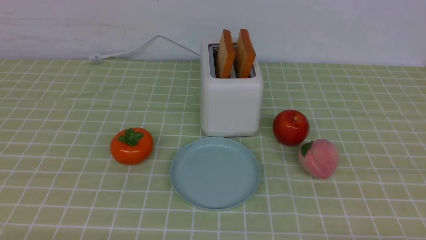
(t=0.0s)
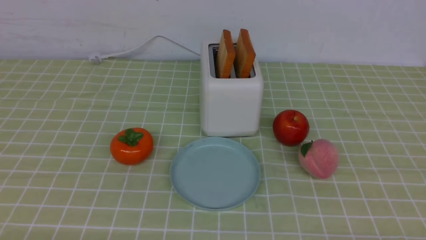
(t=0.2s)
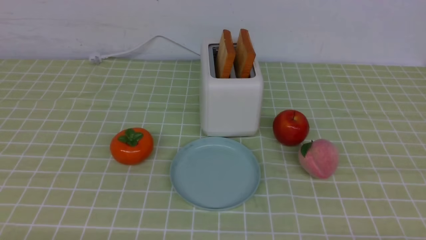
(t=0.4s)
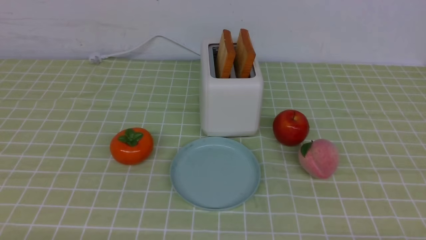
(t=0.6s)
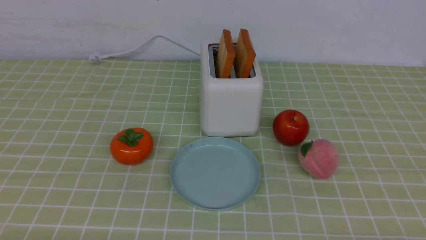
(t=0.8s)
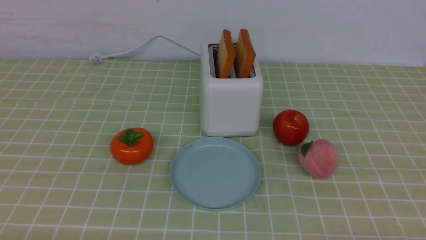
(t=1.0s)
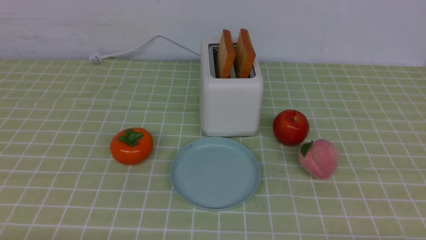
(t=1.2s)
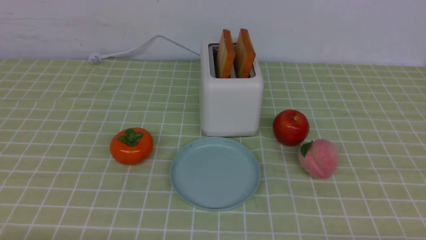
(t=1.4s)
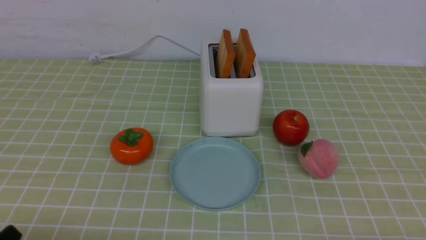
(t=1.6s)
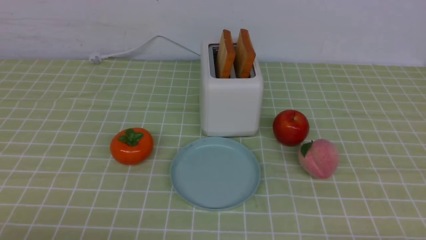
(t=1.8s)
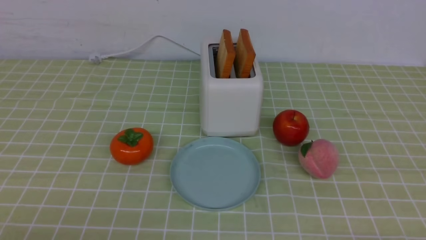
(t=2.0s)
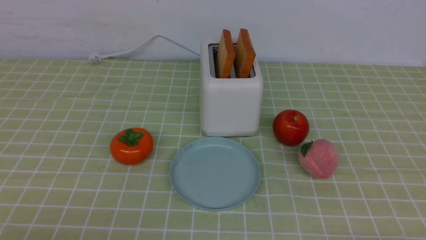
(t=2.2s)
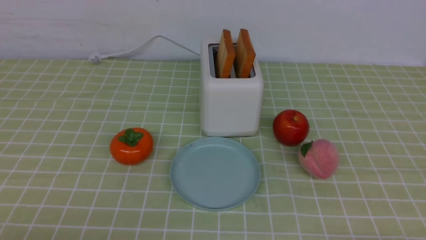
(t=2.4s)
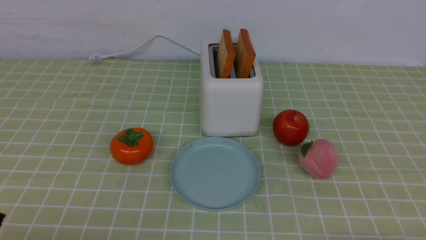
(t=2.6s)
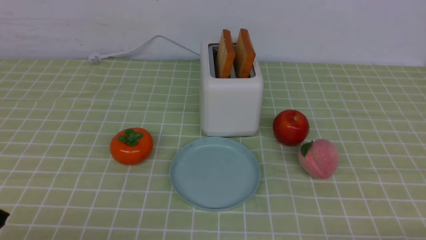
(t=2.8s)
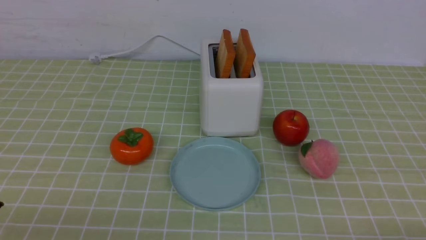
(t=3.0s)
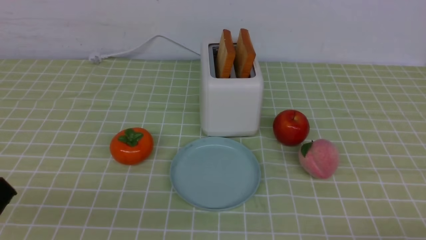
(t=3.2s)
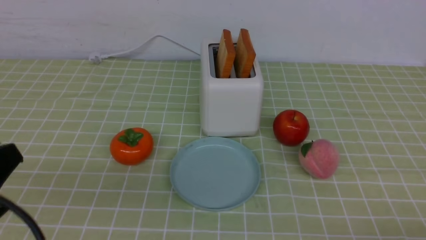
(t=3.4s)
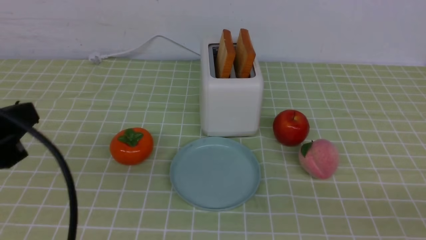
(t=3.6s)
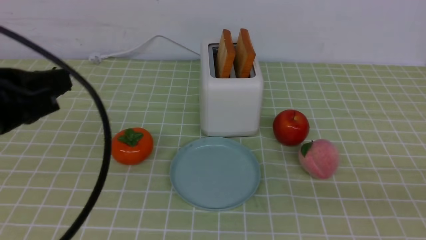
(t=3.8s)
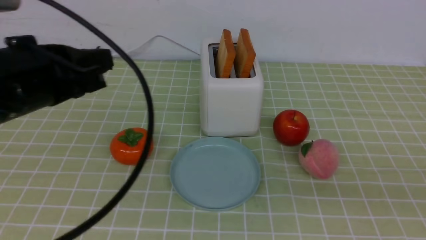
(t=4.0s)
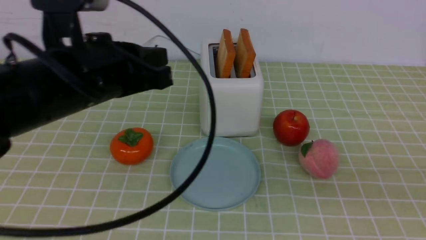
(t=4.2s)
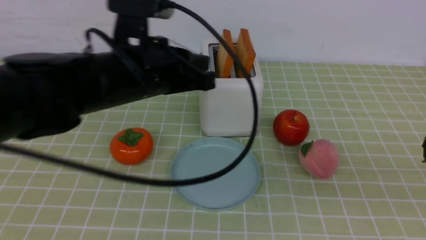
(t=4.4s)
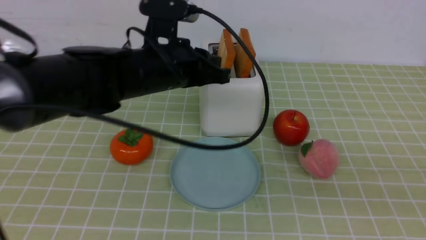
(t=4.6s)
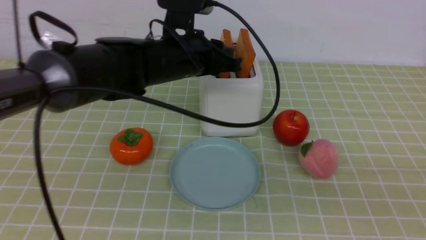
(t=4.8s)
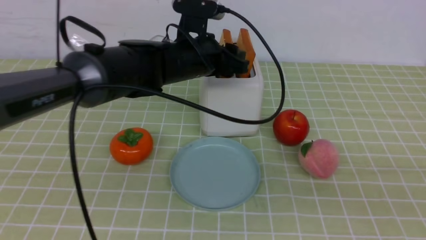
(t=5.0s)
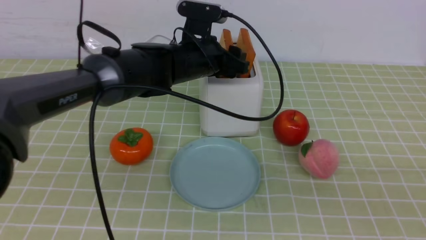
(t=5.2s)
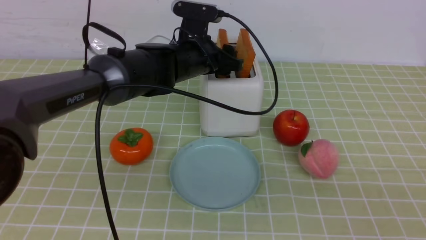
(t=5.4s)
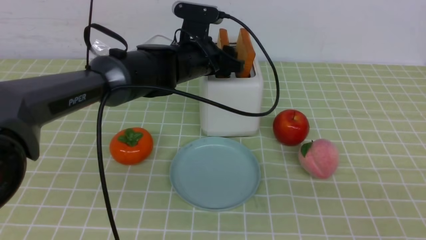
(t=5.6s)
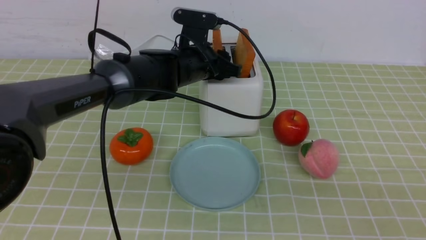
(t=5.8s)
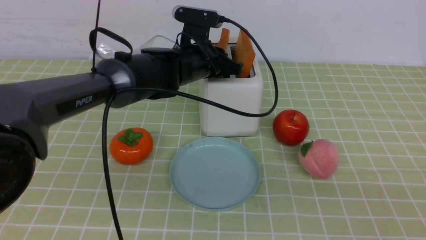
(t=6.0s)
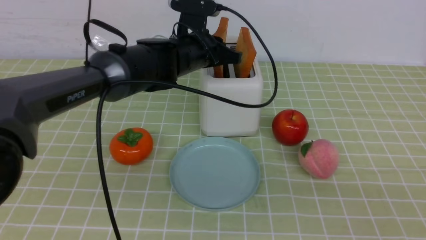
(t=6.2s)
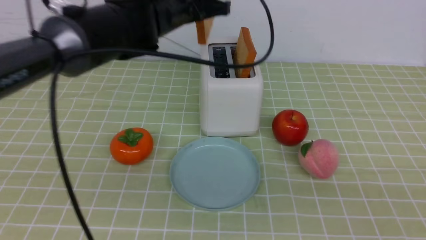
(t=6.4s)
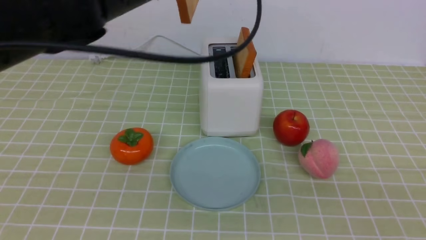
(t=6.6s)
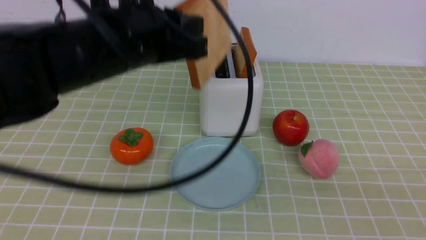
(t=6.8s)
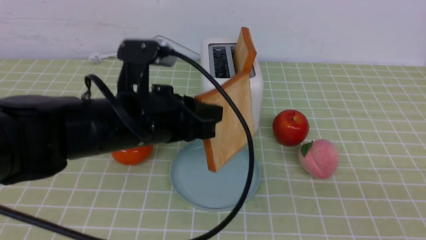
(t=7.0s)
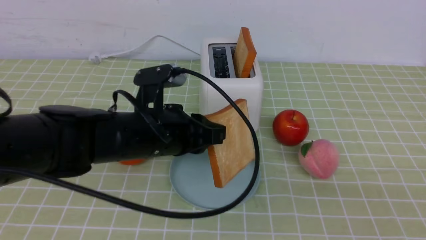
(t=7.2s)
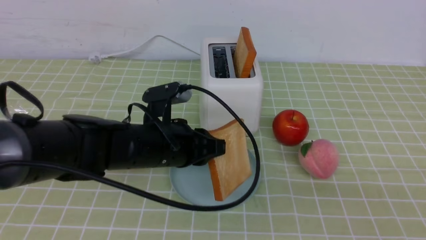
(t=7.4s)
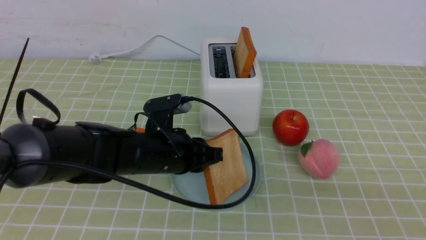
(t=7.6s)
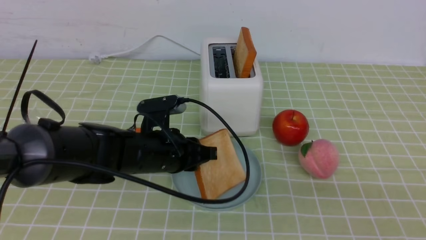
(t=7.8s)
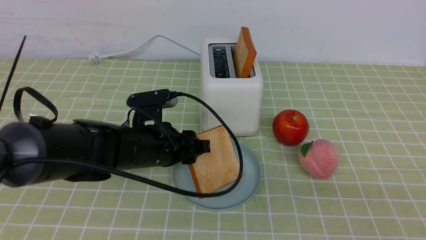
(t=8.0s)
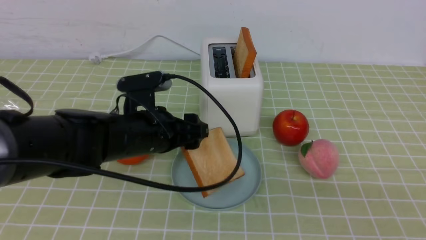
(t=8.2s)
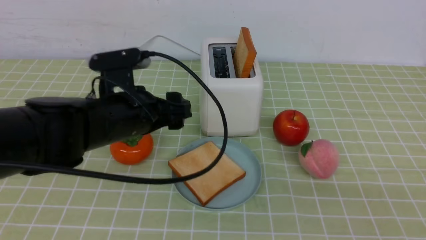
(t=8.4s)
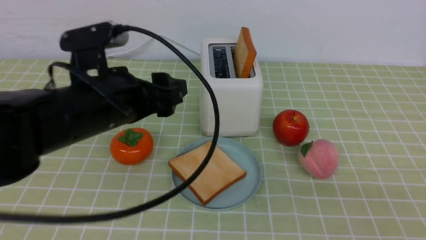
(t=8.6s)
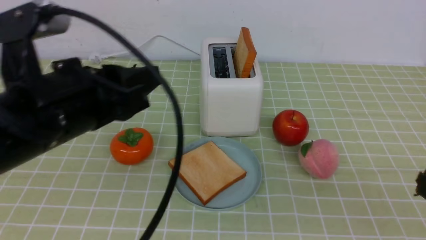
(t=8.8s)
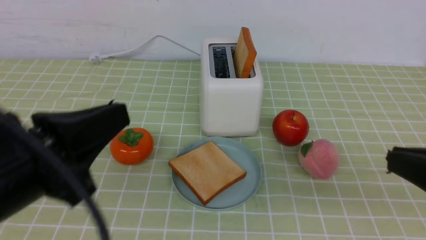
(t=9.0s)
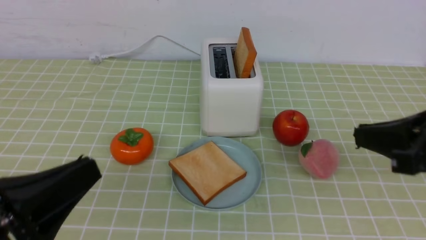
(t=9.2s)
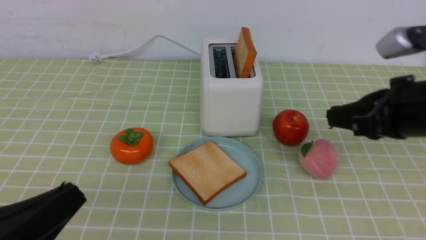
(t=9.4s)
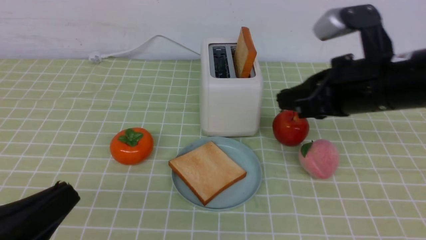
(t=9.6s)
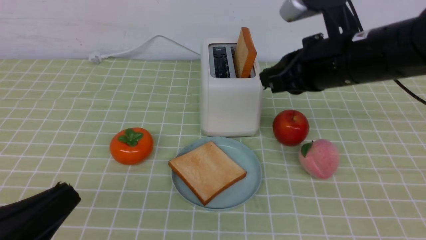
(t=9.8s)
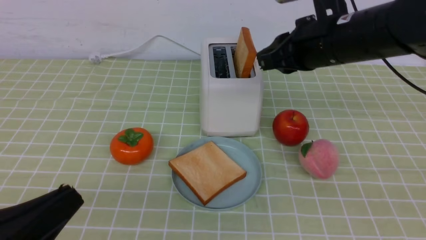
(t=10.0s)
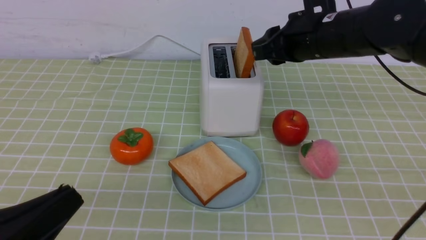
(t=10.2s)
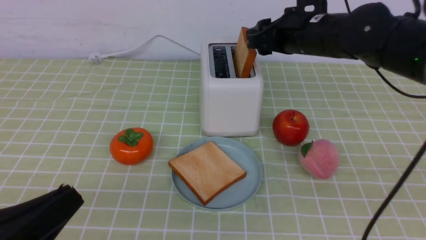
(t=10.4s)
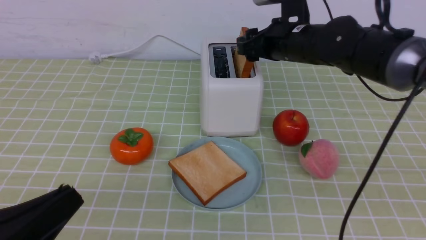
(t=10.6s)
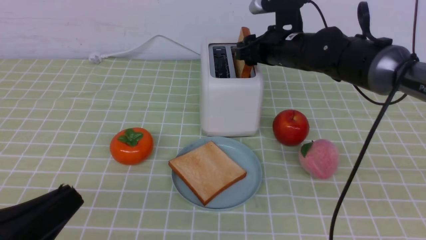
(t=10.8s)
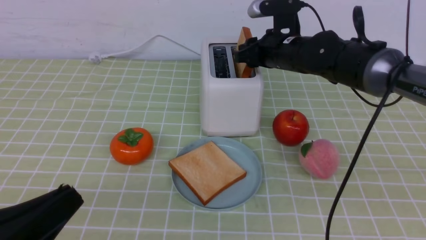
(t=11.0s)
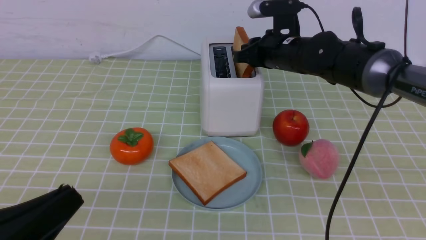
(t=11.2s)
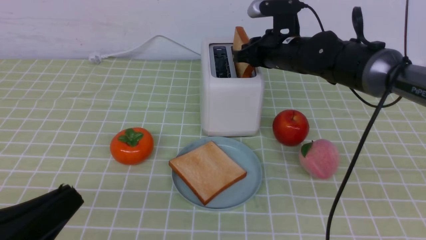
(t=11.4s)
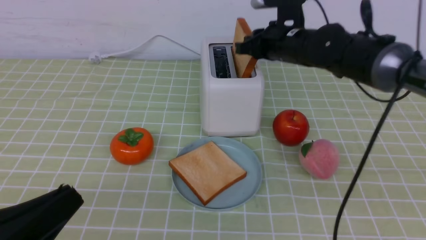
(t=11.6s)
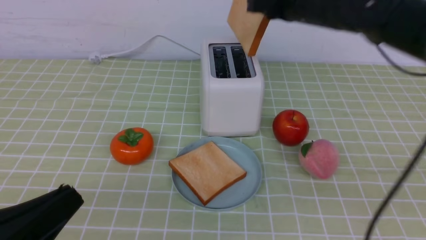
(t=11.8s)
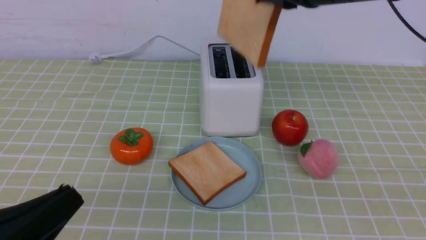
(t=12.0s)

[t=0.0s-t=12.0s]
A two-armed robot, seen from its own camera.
Task of the whole recording: take toasted bread from bread machine on green coffee tablecloth place on plate.
Step, t=0.0s to t=6.4s: use the left arm to take out a slice of bread.
Step, t=6.6s to t=8.6s: use the left arm to put a slice of bread into the empty plate.
Step, t=9.0s to t=11.8s: use the right arm to take out a slice of bread.
t=3.0s to t=4.4s: The left gripper is displaced forward and to the right by some 30 cm. The right gripper heads upward, covering approximately 20 cm, and closes.
t=4.4s to t=6.0s: The left gripper heads forward and downward, covering about 15 cm, and opens, then closes once more; the right gripper heads backward, covering roughly 5 cm.
t=6.0s to t=7.6s: The left gripper is displaced backward and downward by approximately 15 cm.
t=7.6s to t=9.0s: The left gripper goes roughly 25 cm backward, upward and to the left, and opens and closes again; the right gripper shifts about 10 cm forward.
t=9.0s to t=10.4s: The right gripper heads forward, covering approximately 30 cm, and opens its fingers. The left gripper is displaced backward and downward by some 10 cm.
t=10.4s to t=12.0s: The right gripper is displaced upward and backward by some 10 cm, and closes up.

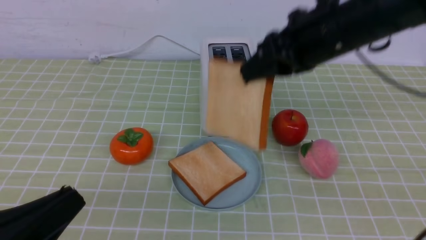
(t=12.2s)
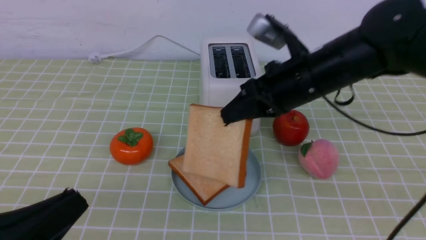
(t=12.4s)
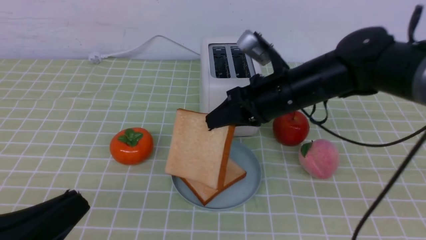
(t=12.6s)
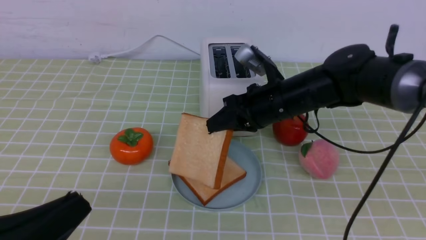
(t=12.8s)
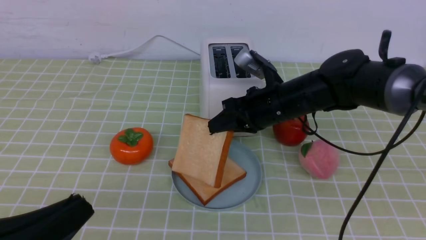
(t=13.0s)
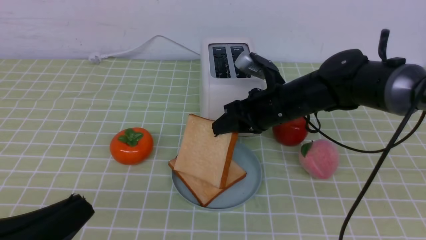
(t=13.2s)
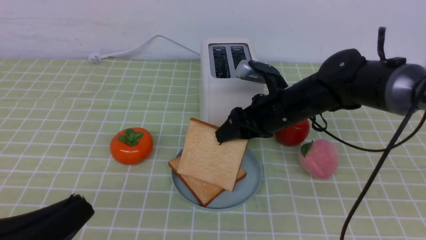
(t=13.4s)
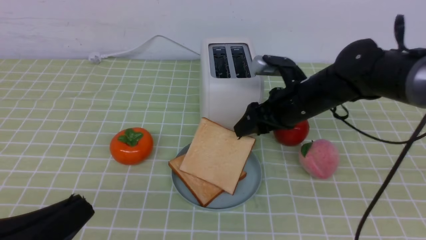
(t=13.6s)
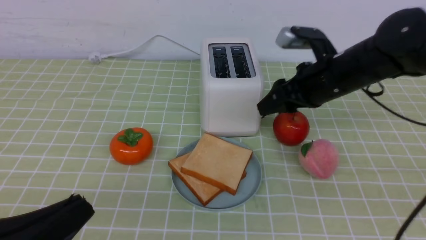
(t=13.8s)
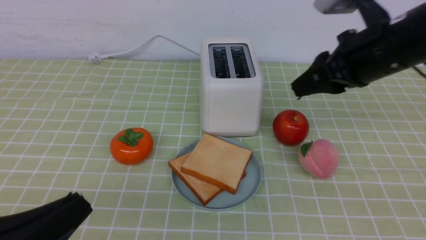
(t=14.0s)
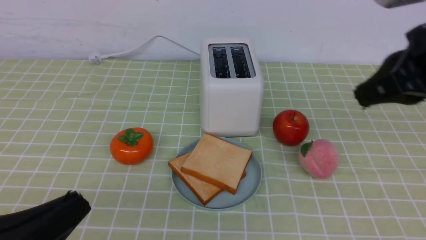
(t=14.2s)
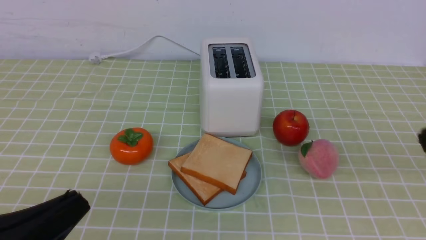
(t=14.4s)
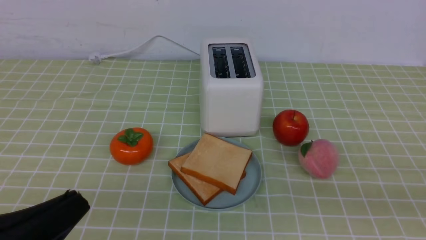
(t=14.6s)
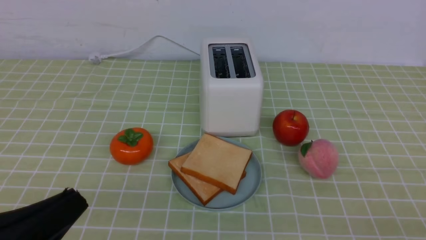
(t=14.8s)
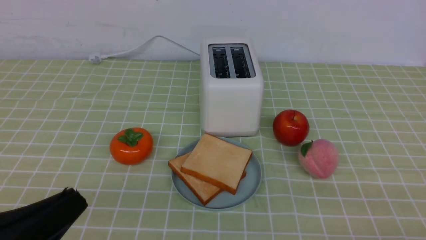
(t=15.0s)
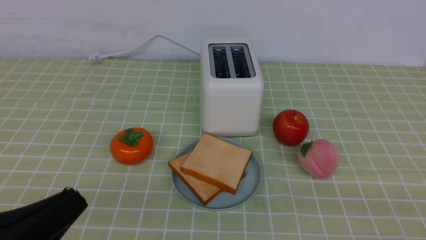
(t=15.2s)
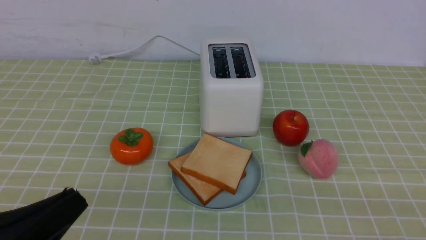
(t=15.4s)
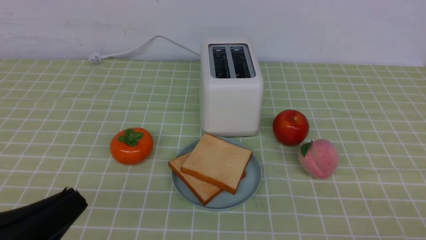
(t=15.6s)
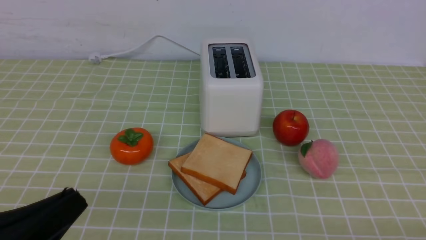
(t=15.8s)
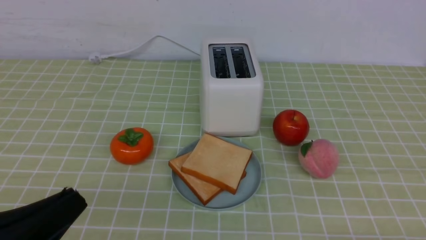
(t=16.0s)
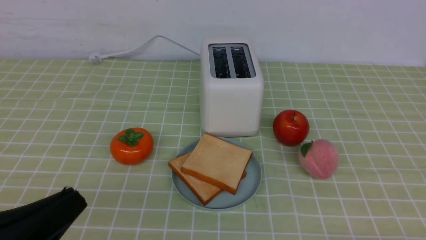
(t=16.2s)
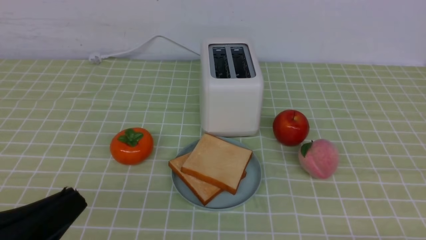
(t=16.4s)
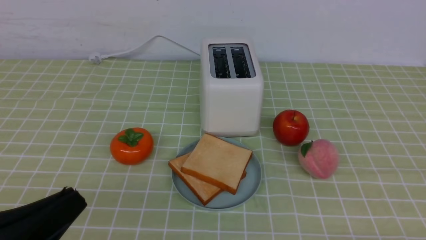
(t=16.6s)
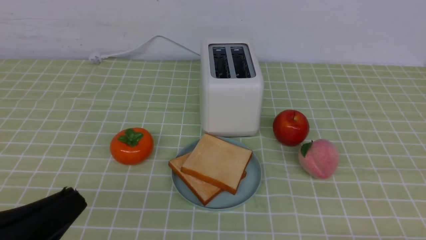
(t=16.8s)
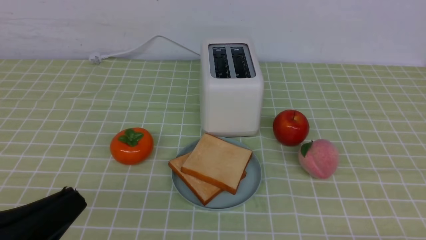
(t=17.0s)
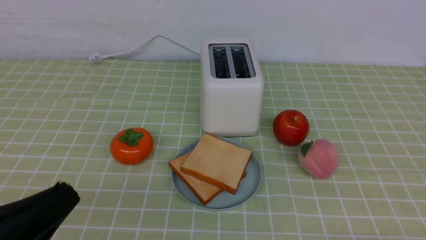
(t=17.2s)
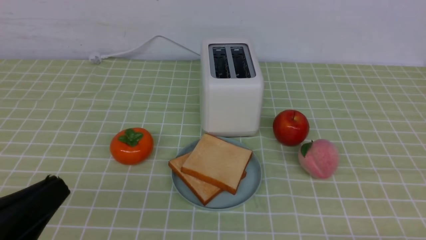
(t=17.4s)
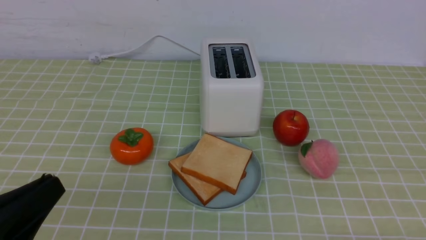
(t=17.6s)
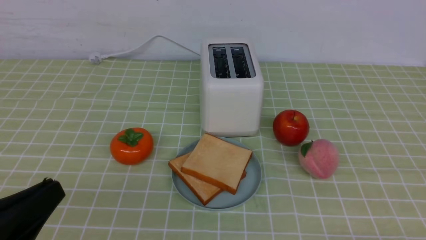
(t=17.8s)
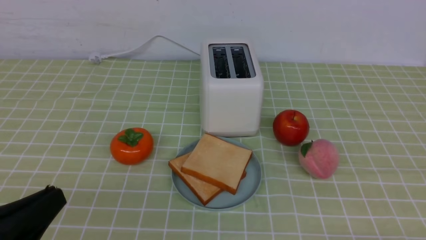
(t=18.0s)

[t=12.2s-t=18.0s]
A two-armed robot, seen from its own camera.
Task of the whole recording: take toasted bread from bread machine on green coffee tablecloth place on plate.
Step, t=12.2s to t=14.2s: use the right arm to put a slice of bread into the plate.
t=12.2s to t=13.6s: The right gripper is displaced downward by approximately 10 cm, and opens its fingers.
t=13.6s to t=15.0s: The right gripper is displaced backward and to the right by some 35 cm, and closes up.
t=16.6s to t=18.0s: The grippers move only a little.
